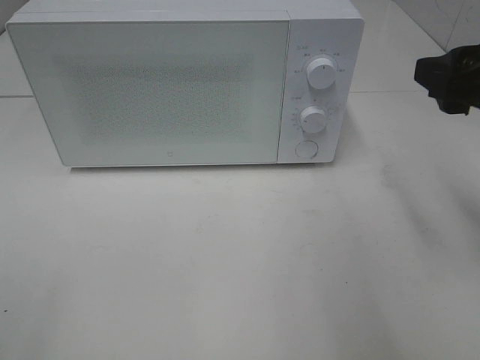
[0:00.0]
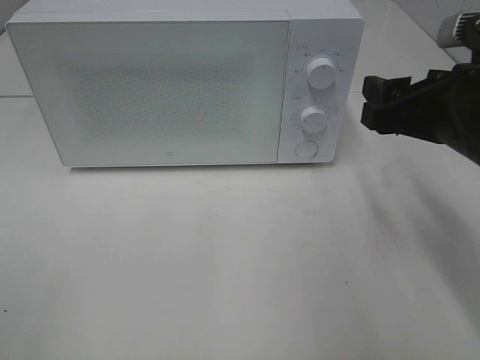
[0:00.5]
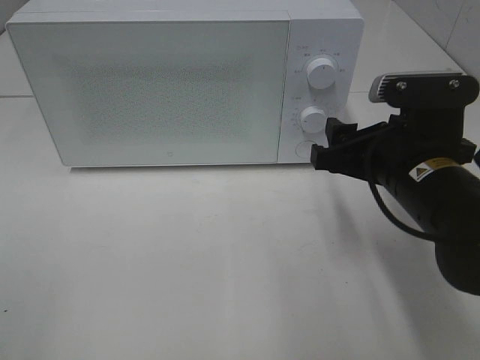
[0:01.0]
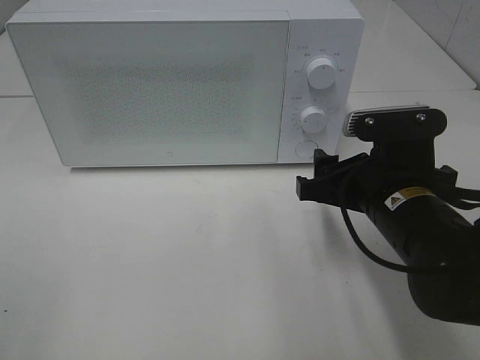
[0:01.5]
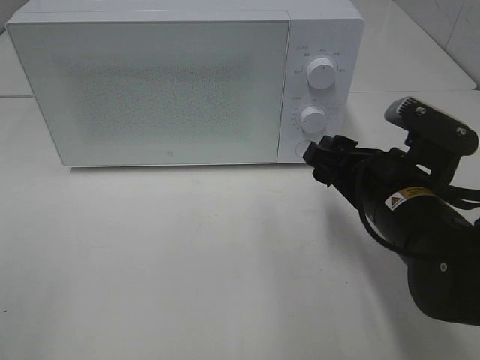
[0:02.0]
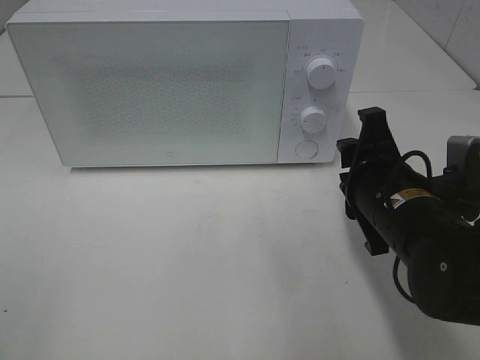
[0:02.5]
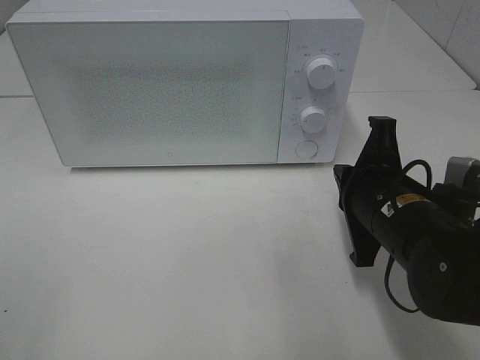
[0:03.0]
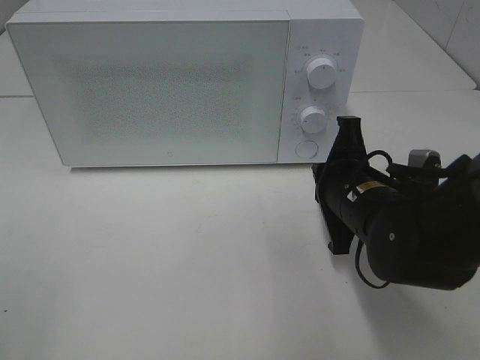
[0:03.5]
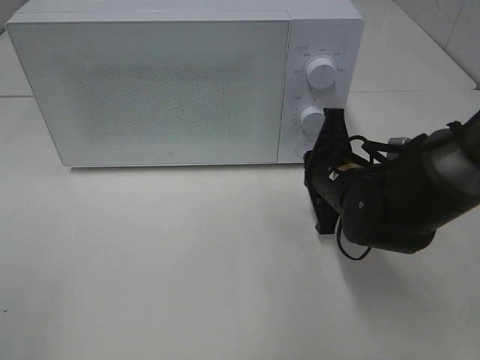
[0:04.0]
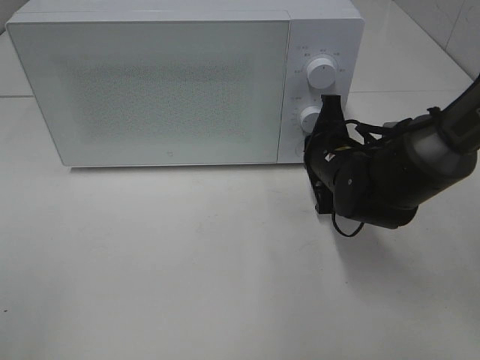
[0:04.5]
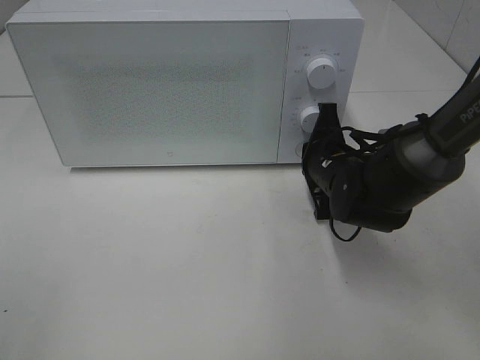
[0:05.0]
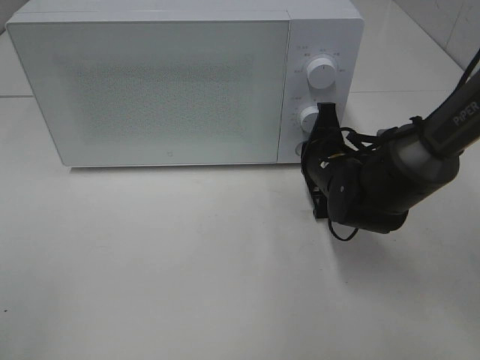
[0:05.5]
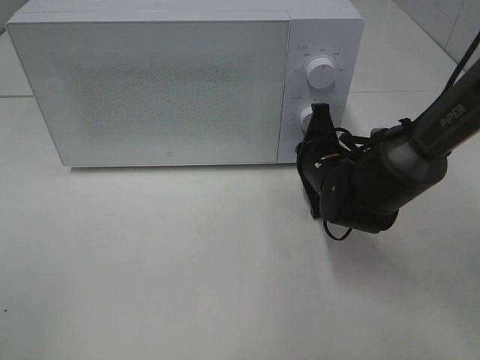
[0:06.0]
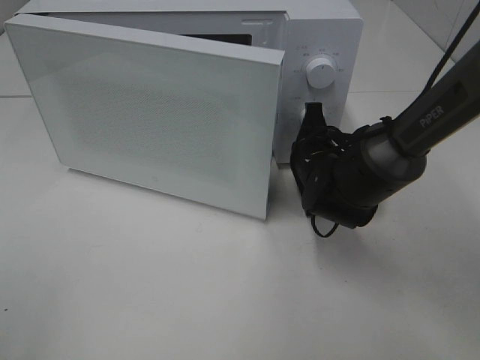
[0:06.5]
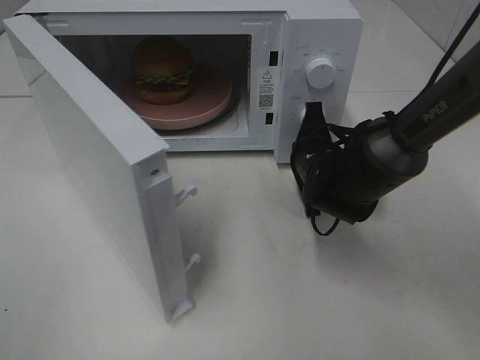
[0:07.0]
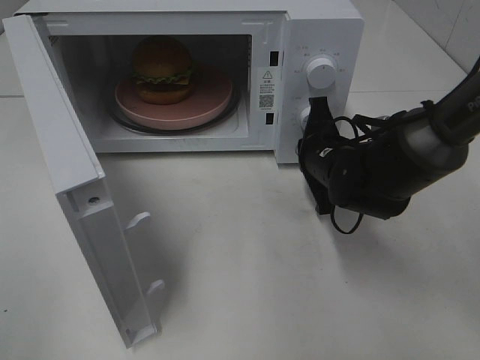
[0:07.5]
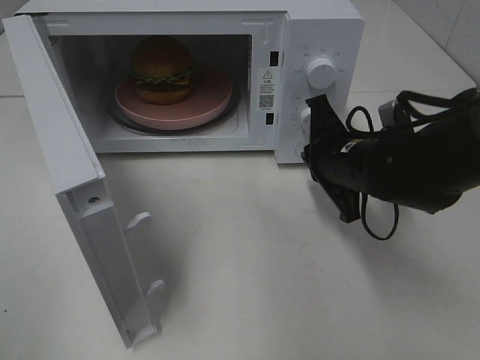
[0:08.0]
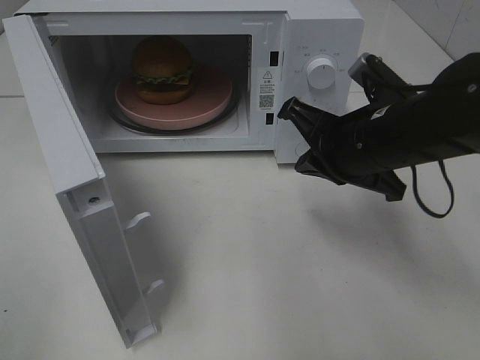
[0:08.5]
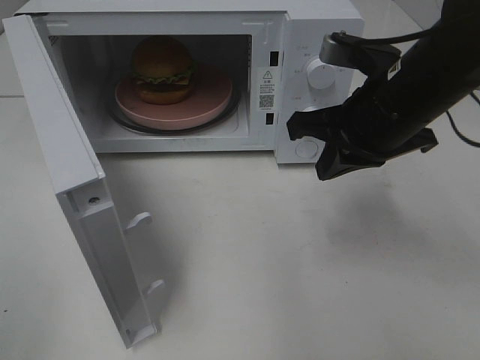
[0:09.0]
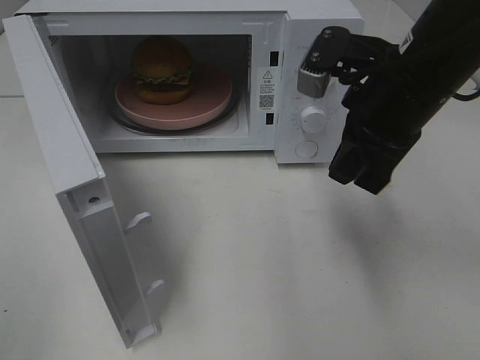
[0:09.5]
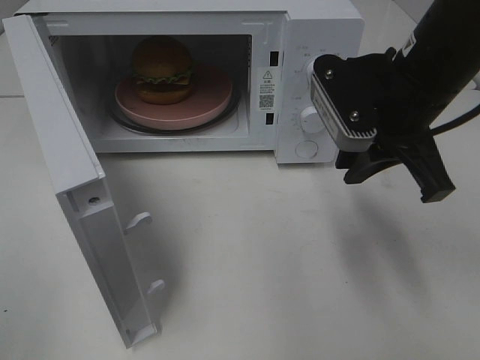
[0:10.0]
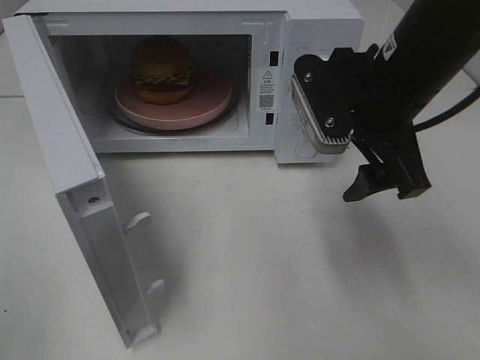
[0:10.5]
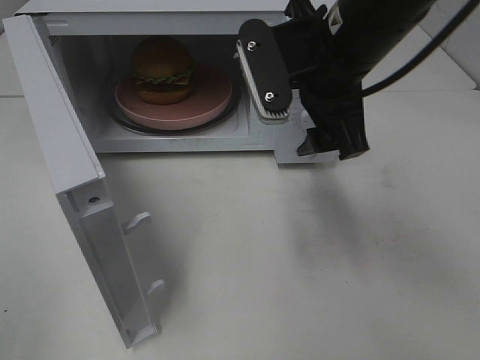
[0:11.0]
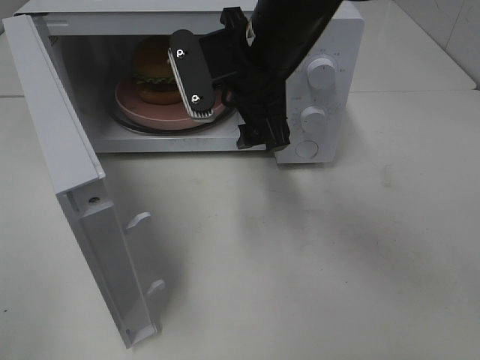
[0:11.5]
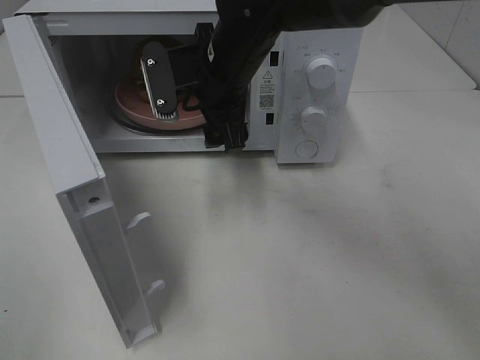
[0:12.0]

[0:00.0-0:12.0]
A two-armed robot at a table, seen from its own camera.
Task of the whole recording: Heat the burger.
Step, 0.0 to 7.5 s: Right hand: press the switch.
0.0 to 2.0 s: The right gripper is displaced downward and to the left by approximately 15 cm.
2.0 to 4.0 s: The right gripper moves forward, approximately 10 cm, and closes its fingers.
4.0 to 6.0 s: The right gripper ends up some 5 cm from where it was.
6.0 to 8.0 s: The right gripper shifts by roughly 5 cm.
8.0 to 10.0 s: The right gripper goes about 10 cm upward.
10.0 to 12.0 s: The right gripper moves to the left and forward, roughly 20 cm, and opens.

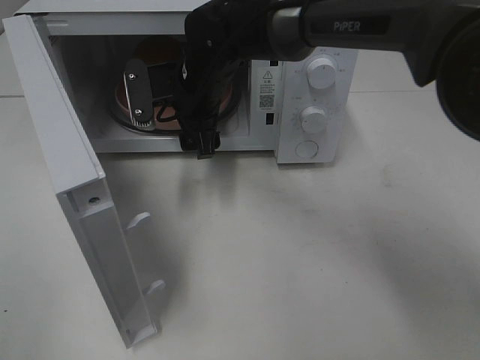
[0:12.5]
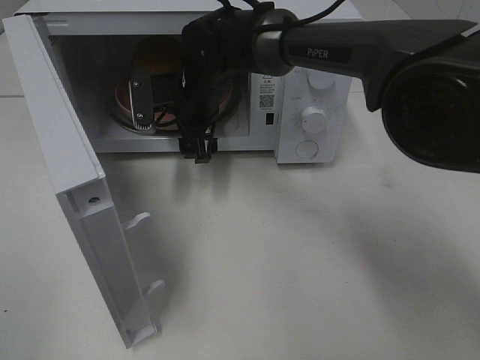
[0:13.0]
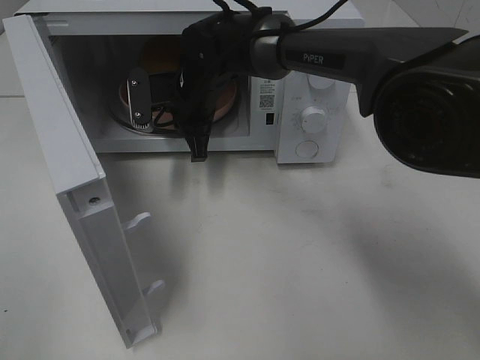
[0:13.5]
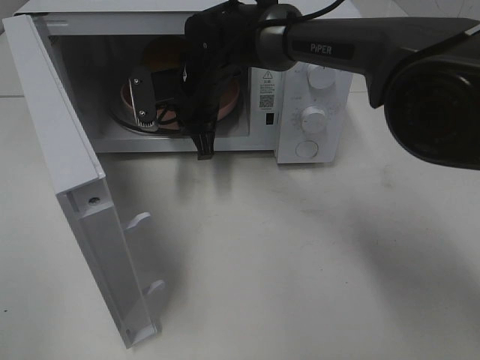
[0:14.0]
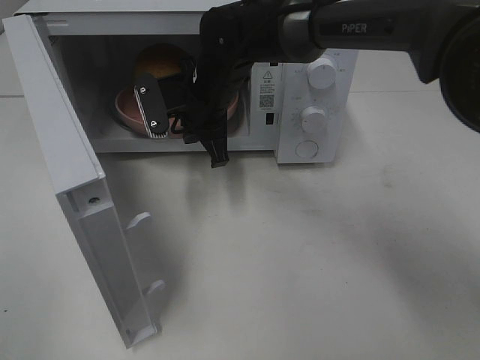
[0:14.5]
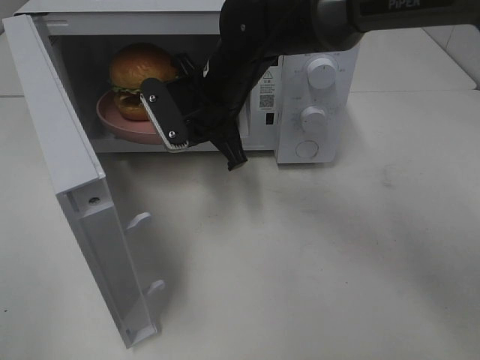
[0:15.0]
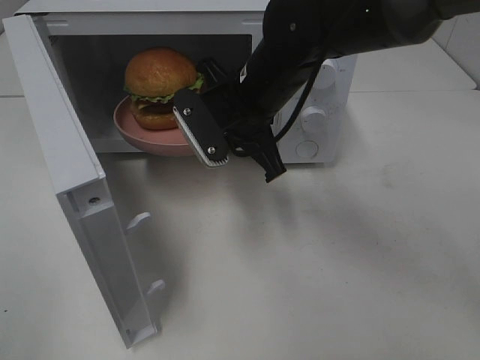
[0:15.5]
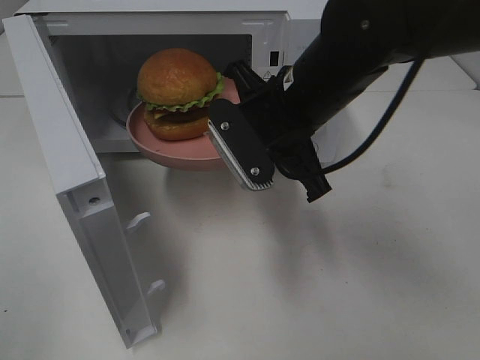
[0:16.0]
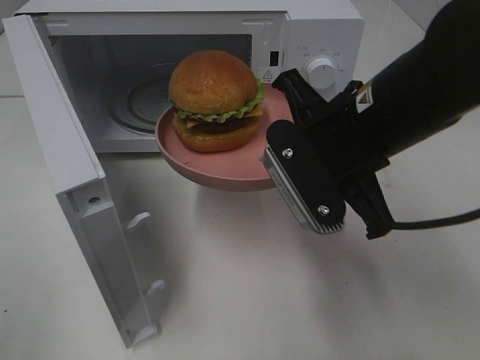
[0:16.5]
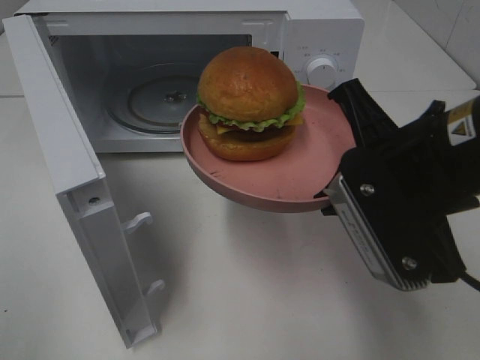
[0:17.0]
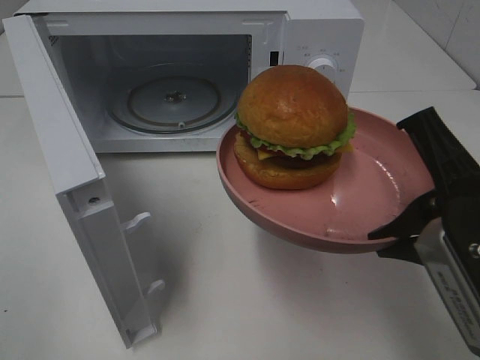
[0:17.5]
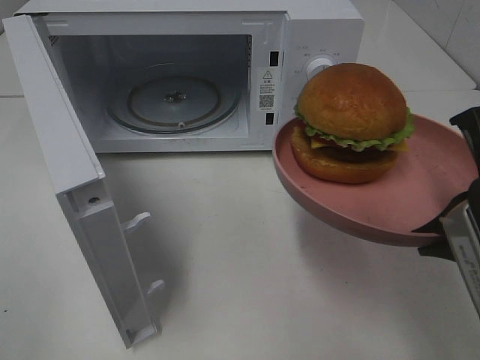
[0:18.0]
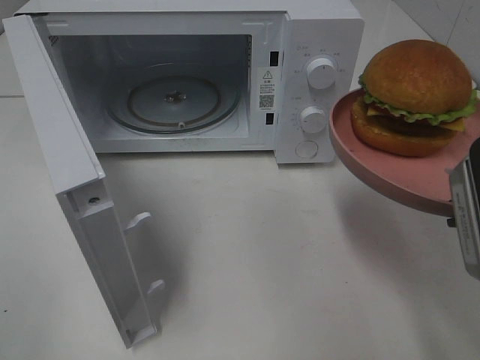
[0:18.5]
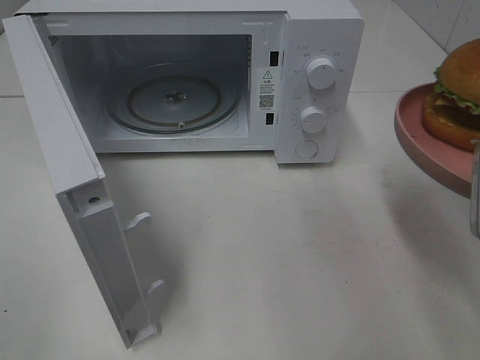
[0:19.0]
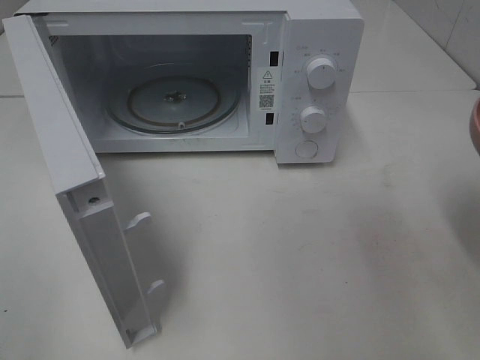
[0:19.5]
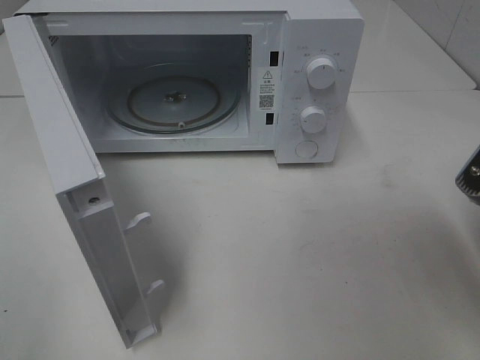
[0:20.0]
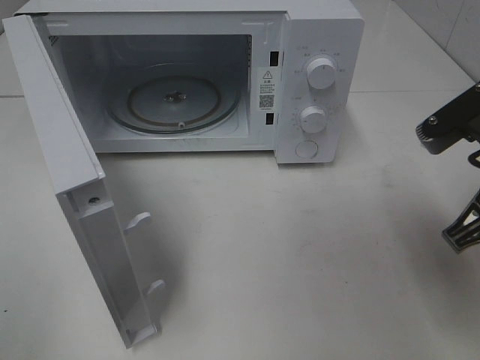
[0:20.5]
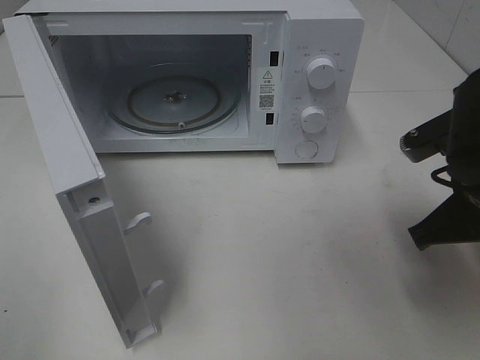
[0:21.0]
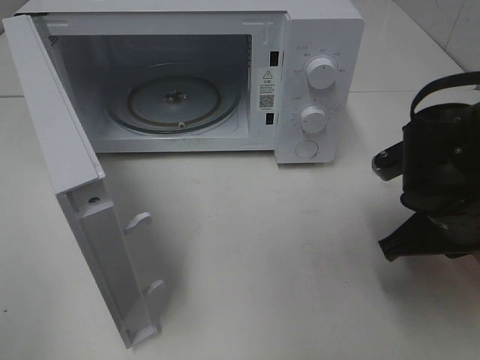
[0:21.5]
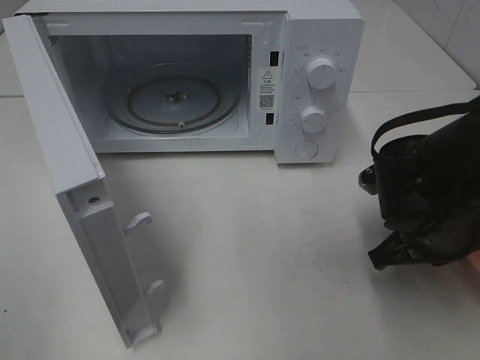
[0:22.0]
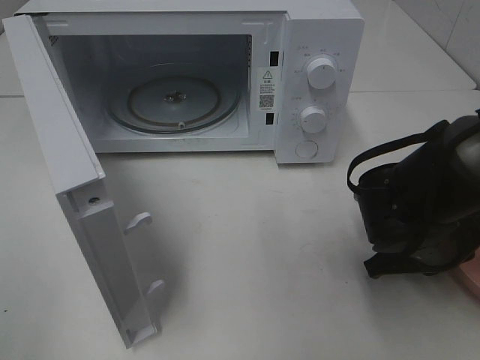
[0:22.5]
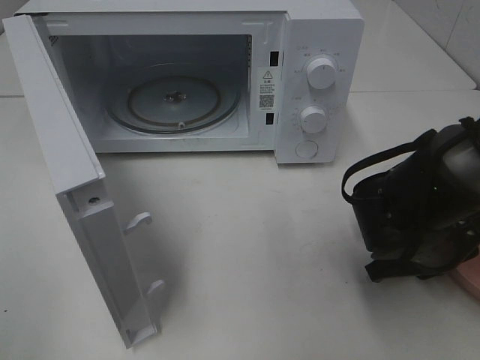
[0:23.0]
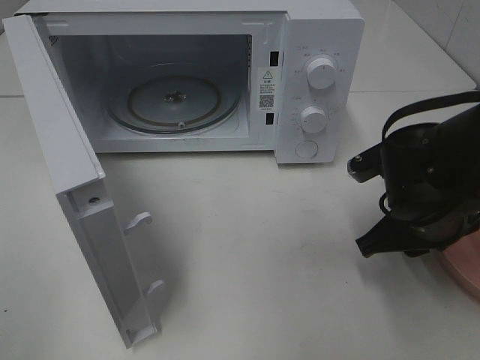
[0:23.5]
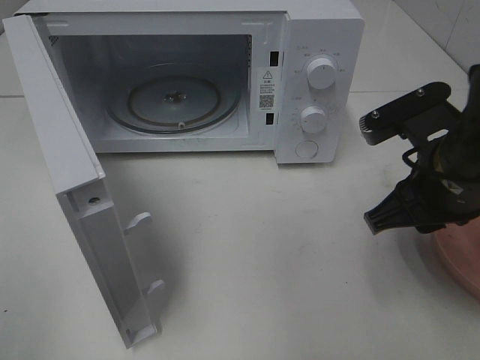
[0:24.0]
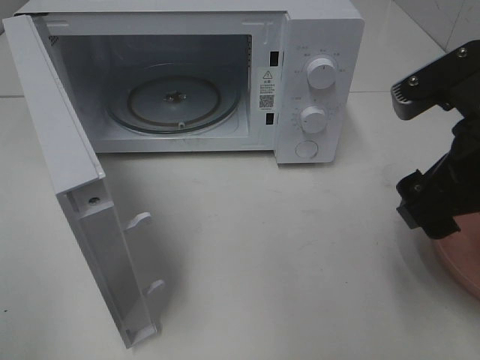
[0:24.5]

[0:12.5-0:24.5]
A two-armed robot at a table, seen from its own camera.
Task of the whole recording: Heat the burger.
Step, 14.0 to 23.5 s: Right hand: place the plate on the table.
12.5 to 14.5 s: The right gripper closes its fingers.
14.5 to 16.5 s: The right gripper travels backward and to the right by some 20 cm.
16.5 to 18.5 s: The right gripper travels to the right and backward by some 15 cm.
18.5 to 20.5 s: The right gripper moves forward, some 5 cm.
20.5 to 22.5 s: The right gripper heads downward, covering roughly 15 cm.
22.5 to 24.5 s: The right gripper moves upward, some 15 cm, and opens its fingers.

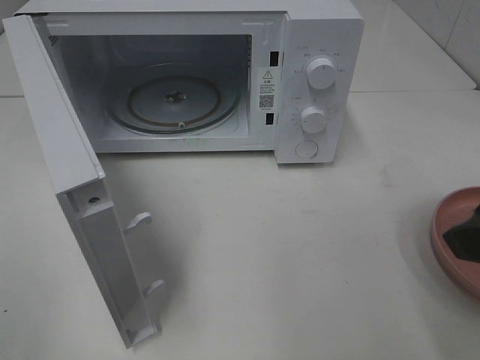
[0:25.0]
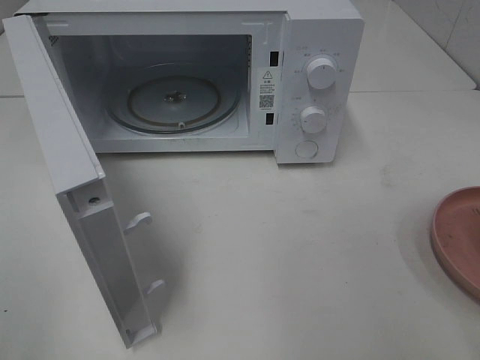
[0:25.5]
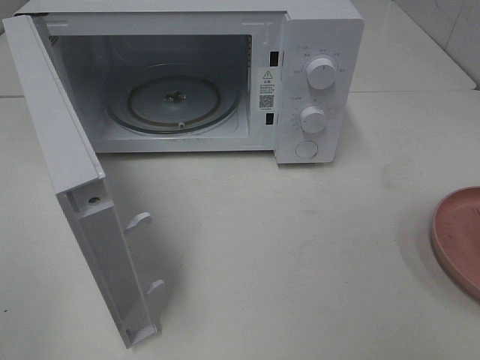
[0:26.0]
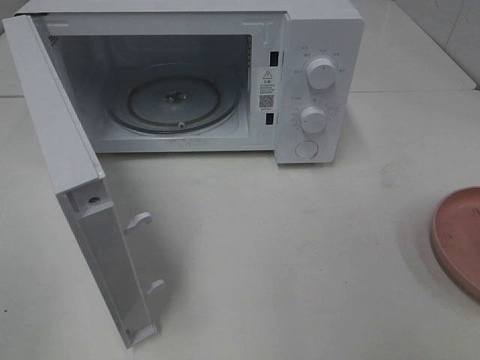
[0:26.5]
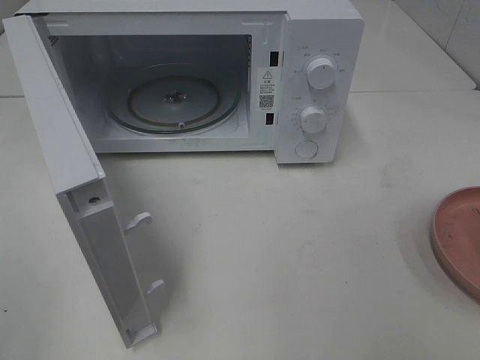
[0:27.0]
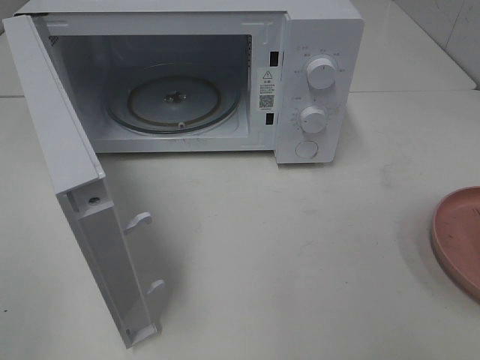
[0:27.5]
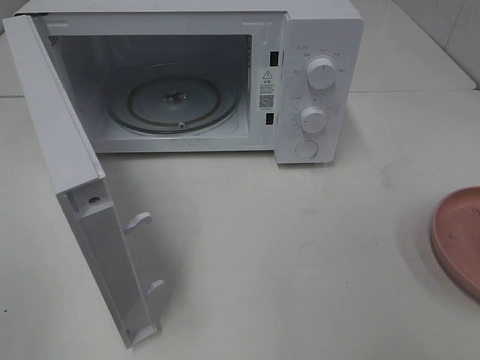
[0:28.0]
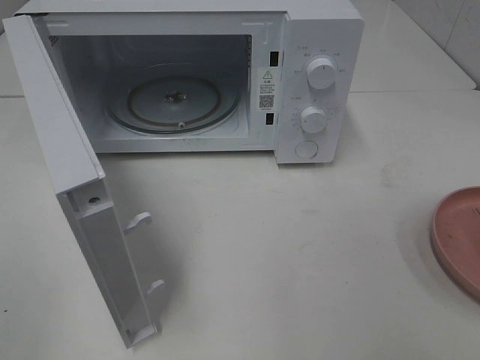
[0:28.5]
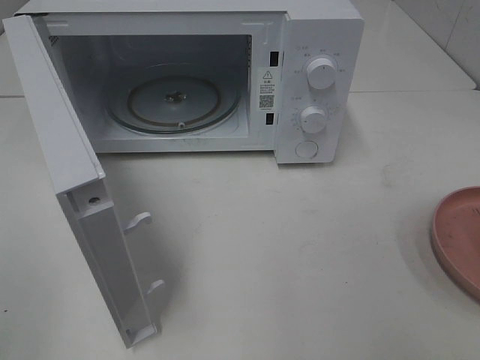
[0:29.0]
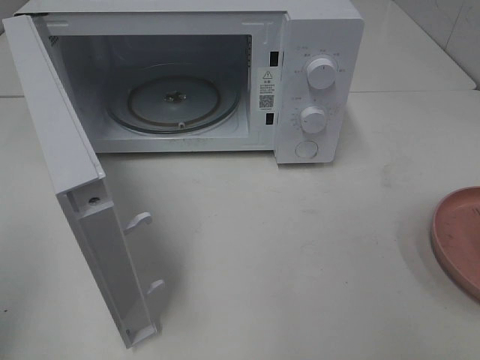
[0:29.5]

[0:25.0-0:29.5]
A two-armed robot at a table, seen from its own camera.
Task of the whole recording: Heat the burger.
25.0 to 27.0 s: The right gripper goes roughly 15 cm backward and to the right.
